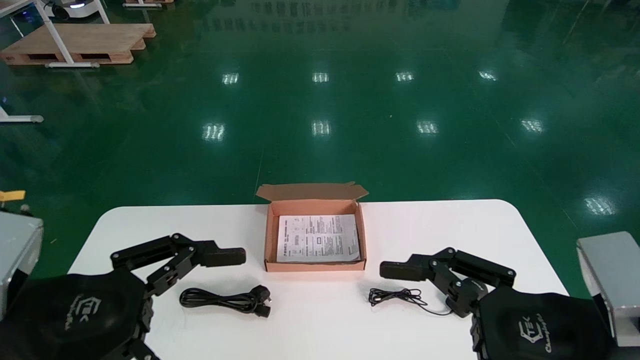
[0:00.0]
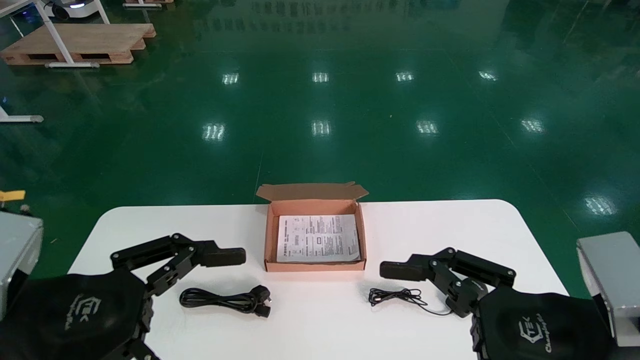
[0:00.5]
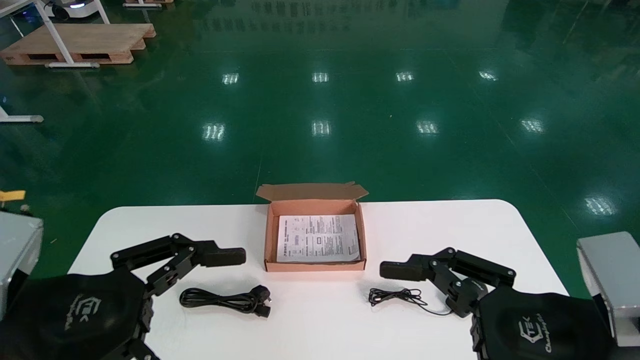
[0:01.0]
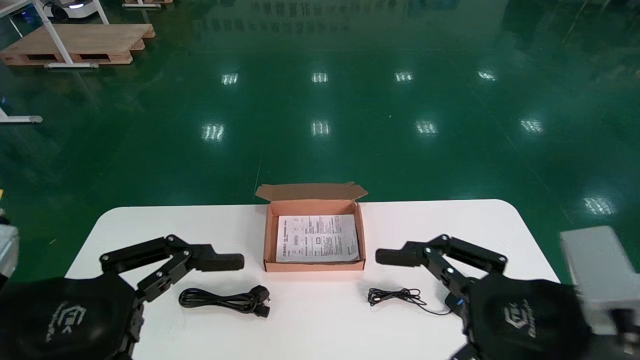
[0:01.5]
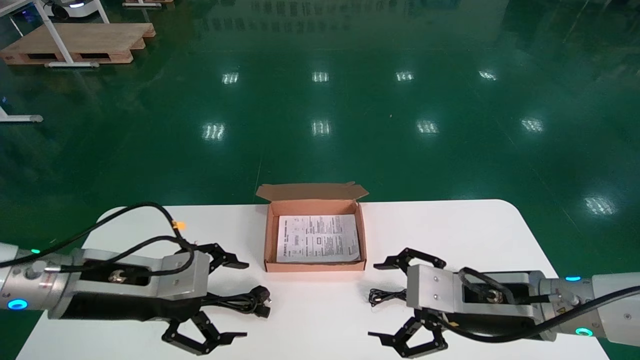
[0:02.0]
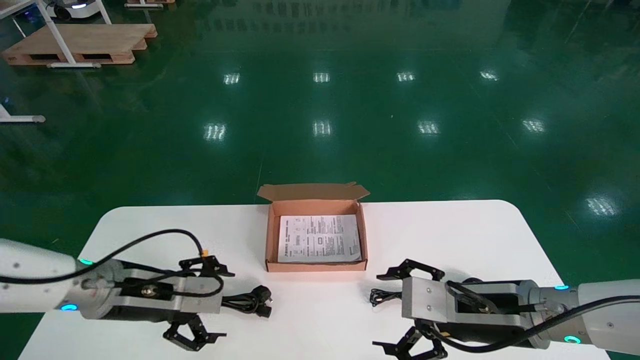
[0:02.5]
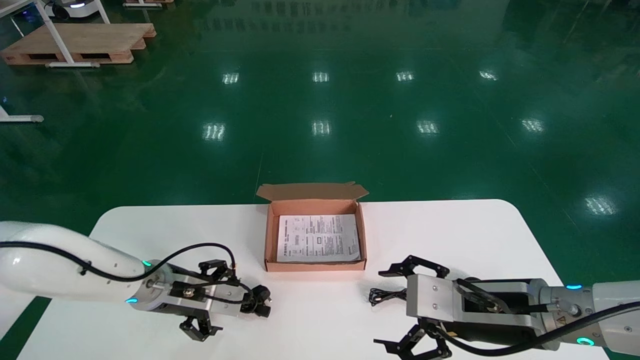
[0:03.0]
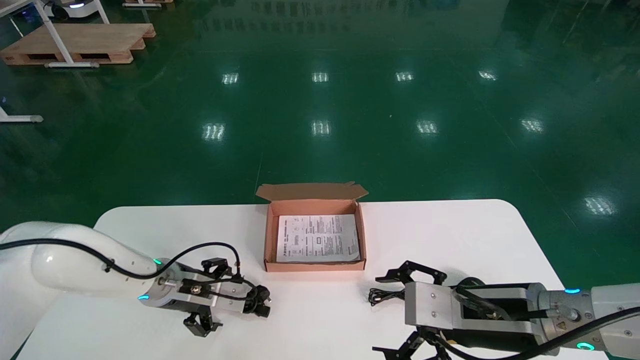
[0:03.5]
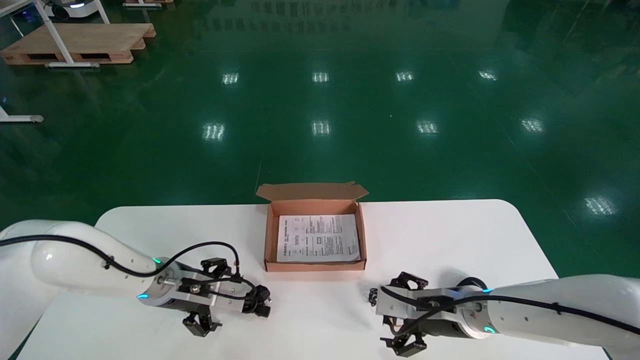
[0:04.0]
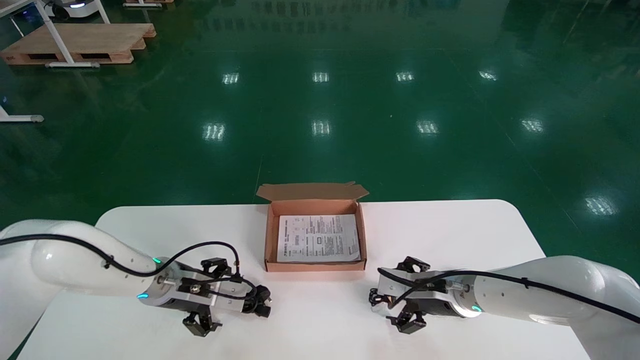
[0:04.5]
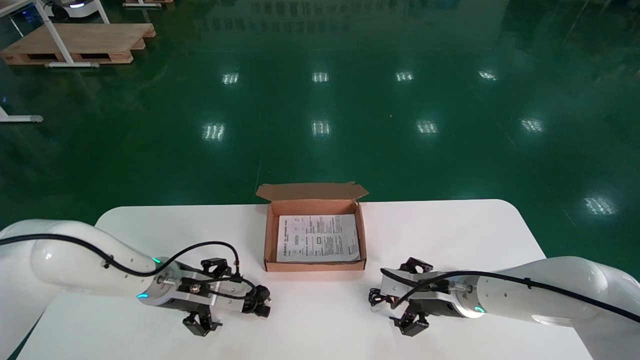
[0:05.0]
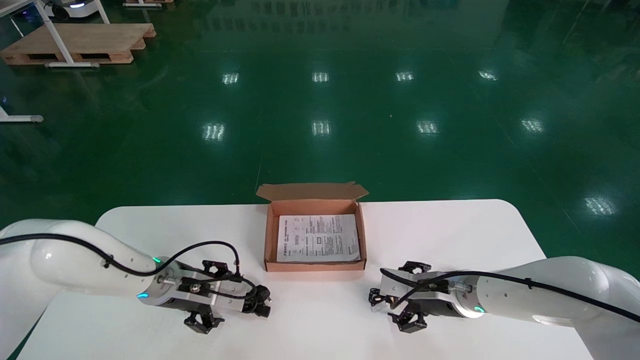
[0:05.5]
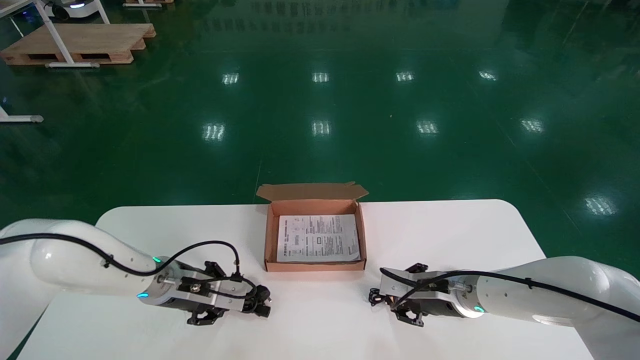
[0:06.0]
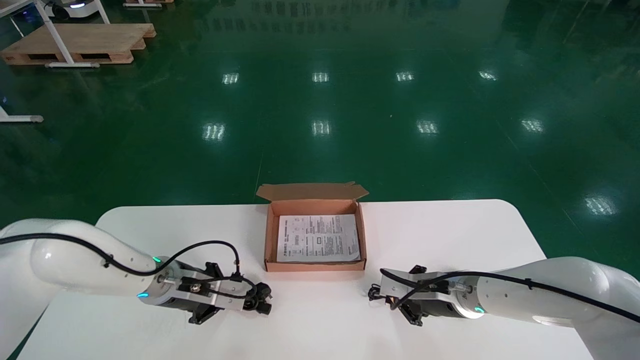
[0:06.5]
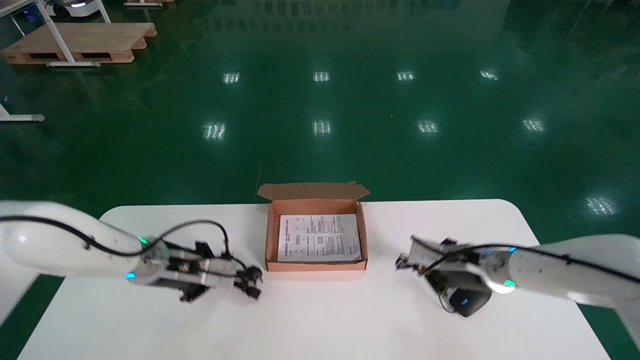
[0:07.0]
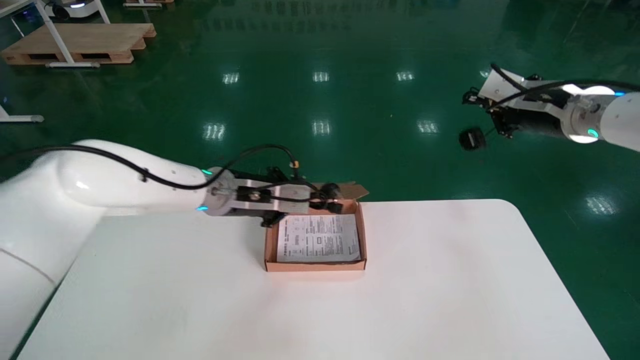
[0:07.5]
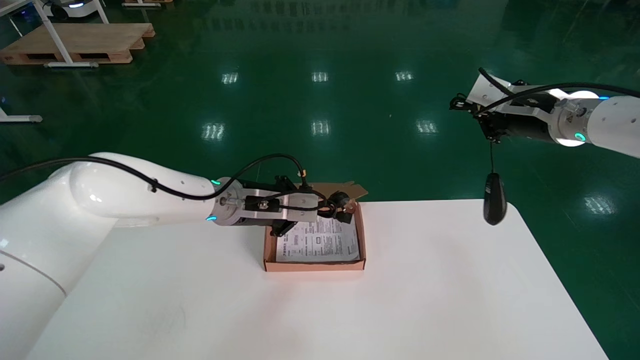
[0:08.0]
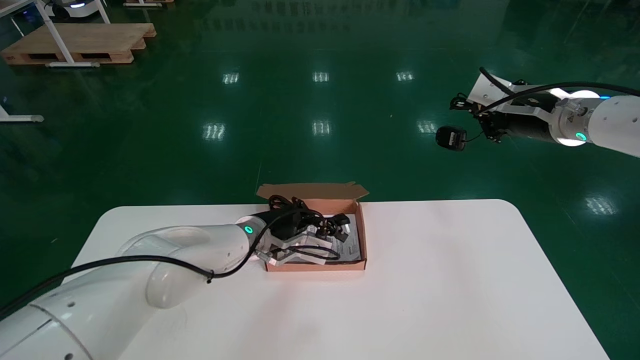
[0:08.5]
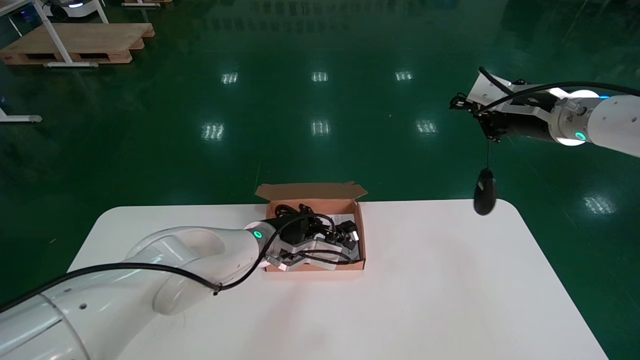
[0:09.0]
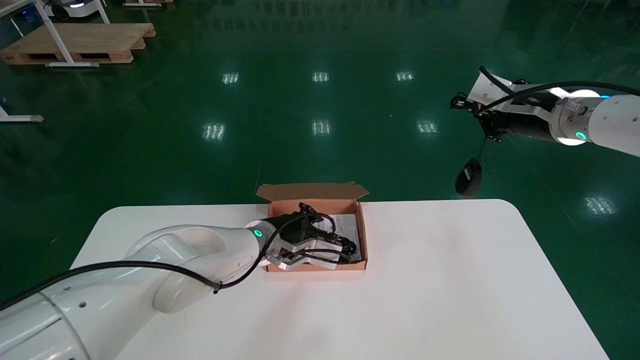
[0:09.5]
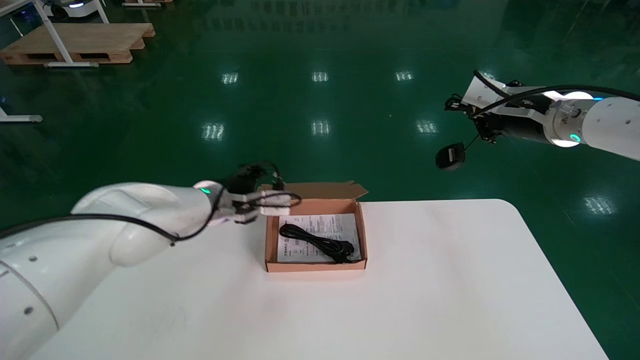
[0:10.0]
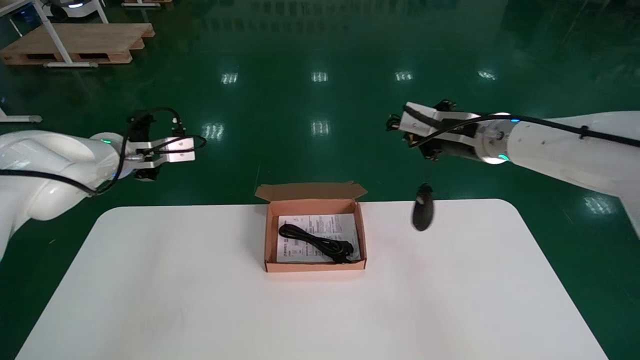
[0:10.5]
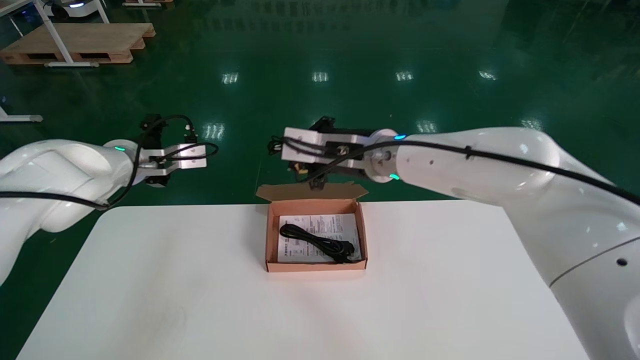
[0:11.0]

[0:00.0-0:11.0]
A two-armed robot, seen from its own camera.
Step, 0:01.5 to 0:07.0: Simultaneously pick up the mouse and power cord from the accessory packaging area.
0:00.0 to 0:02.0: The grippers both shift forward by about 10 cm.
0:02.0 to 0:03.5: The left gripper shifts about 15 cm forward and downward.
0:03.5 to 0:05.5: The right gripper heads forward and downward, covering roughly 15 cm.
0:05.5 to 0:07.5: The left gripper is displaced upward and to the right by about 15 cm, and closes its fingers; the right gripper heads upward and to the right, covering some 30 cm, and closes.
0:07.5 to 0:09.0: The left gripper travels downward and to the right by approximately 10 cm.
0:09.0 to 0:11.0: The right gripper goes about 25 cm to the left. Meanwhile the left gripper travels to the left and upward by roughly 25 cm, and opens.

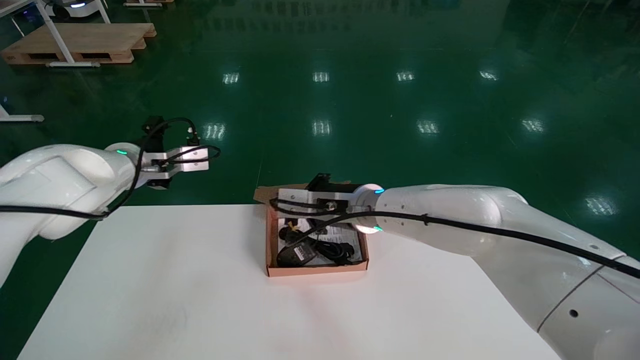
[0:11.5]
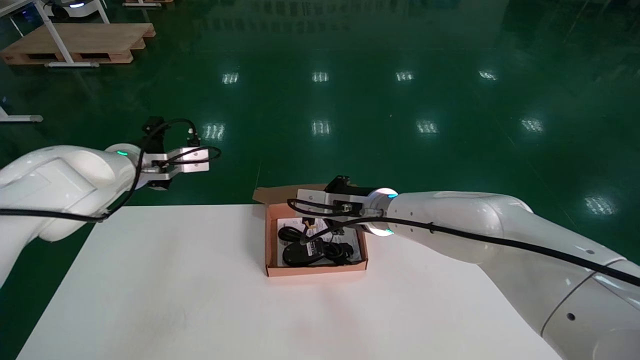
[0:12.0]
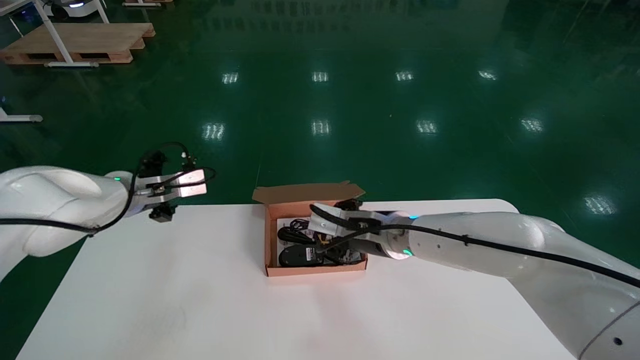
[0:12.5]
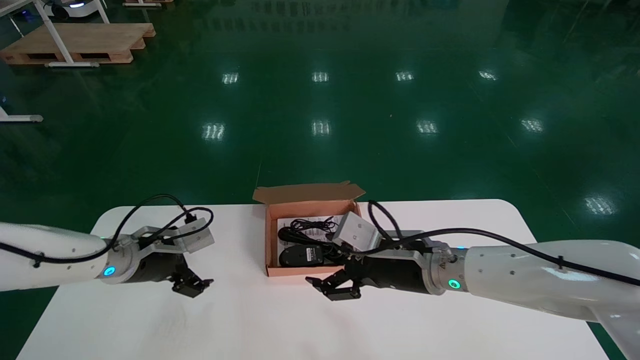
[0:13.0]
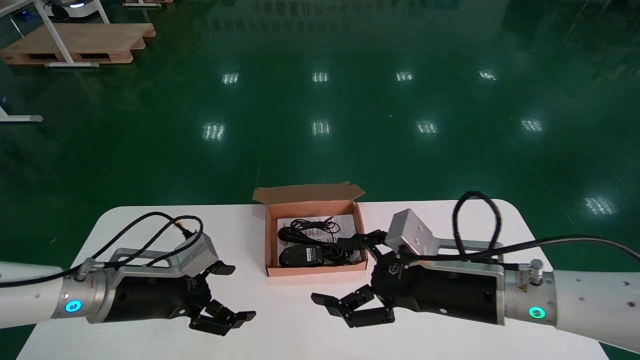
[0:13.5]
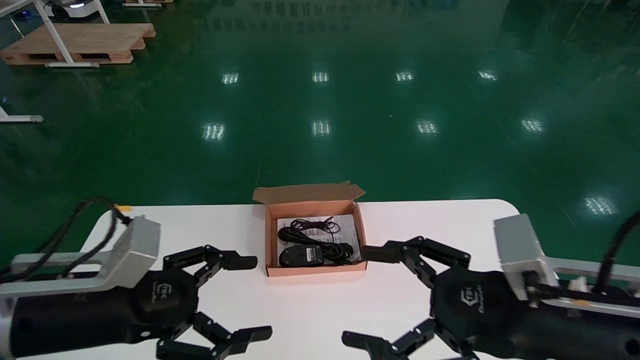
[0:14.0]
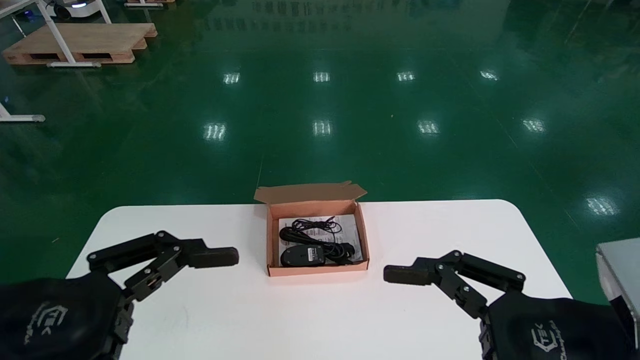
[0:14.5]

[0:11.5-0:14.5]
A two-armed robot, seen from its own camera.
0:11.5 to 0:13.0: The left gripper is displaced downward by roughly 15 cm, while the right gripper heads to the right, downward and backward, covering about 10 cm, and opens up.
0:13.0 to 0:14.5: The right gripper is displaced backward and to the right by approximately 25 cm. The left gripper heads backward, covering roughly 25 cm.
